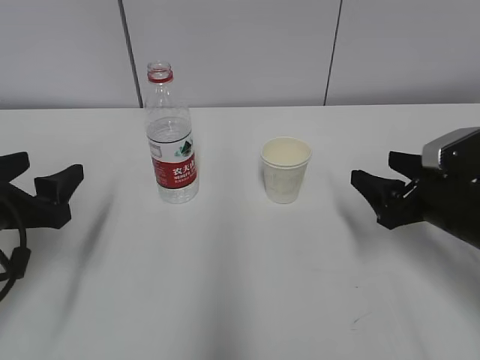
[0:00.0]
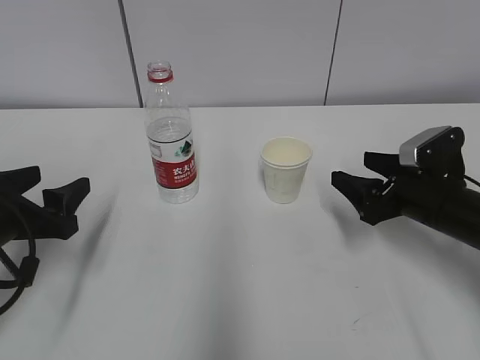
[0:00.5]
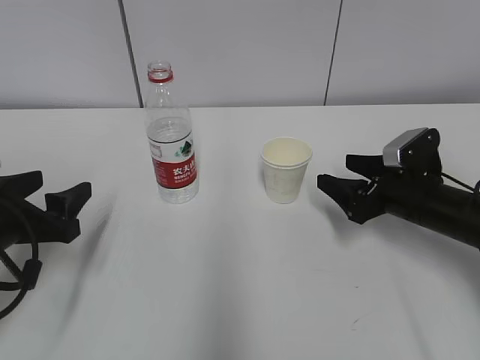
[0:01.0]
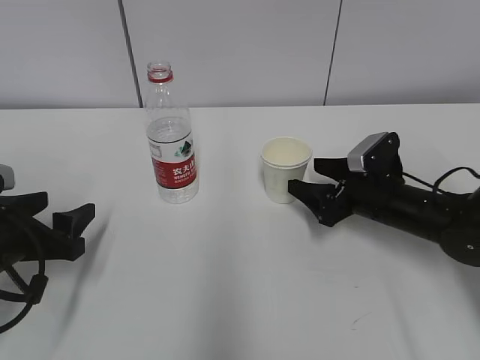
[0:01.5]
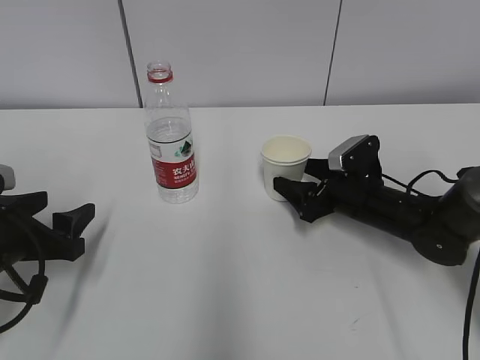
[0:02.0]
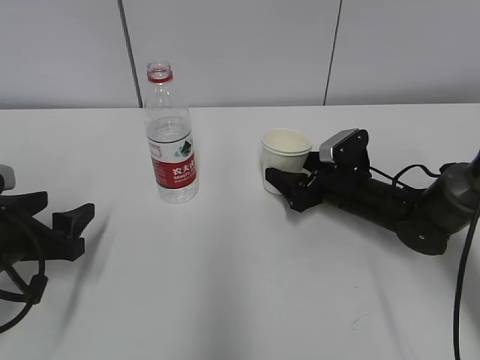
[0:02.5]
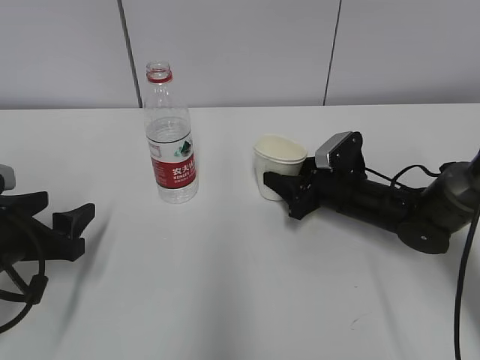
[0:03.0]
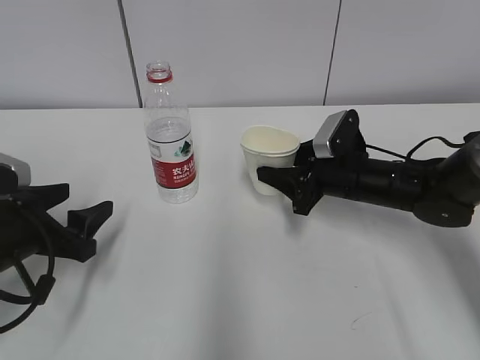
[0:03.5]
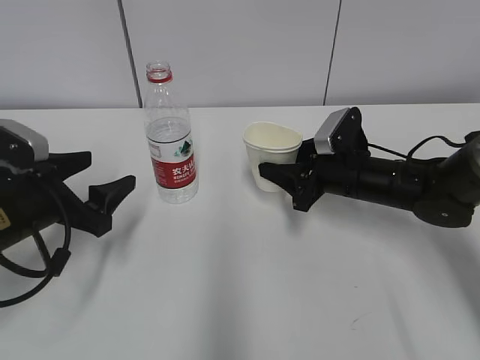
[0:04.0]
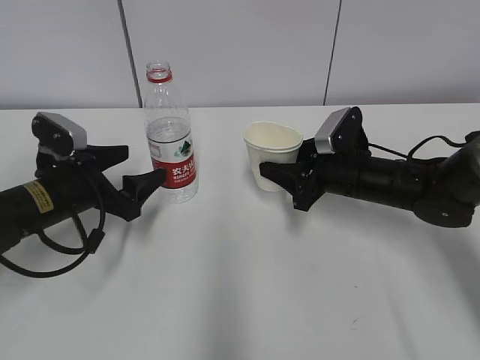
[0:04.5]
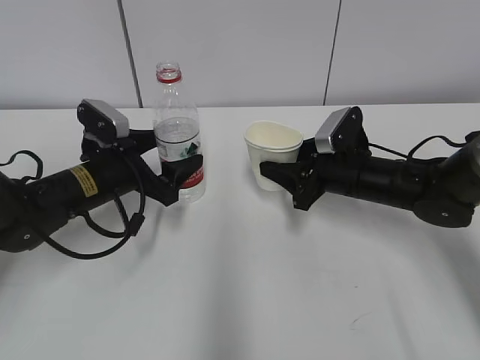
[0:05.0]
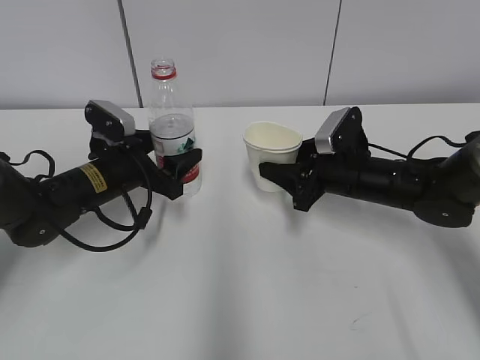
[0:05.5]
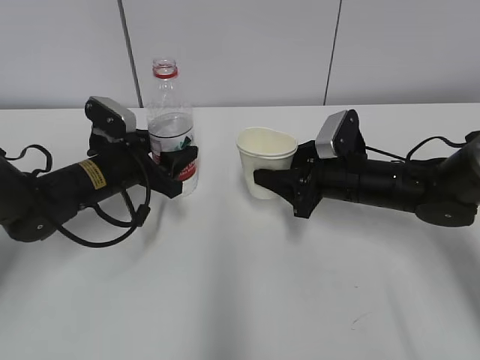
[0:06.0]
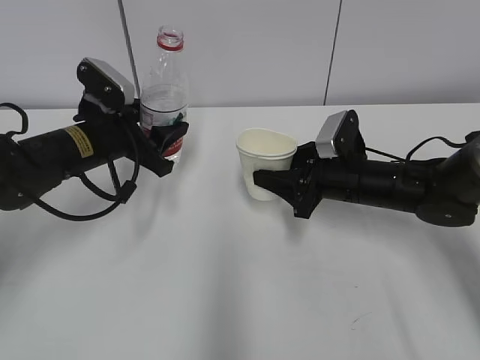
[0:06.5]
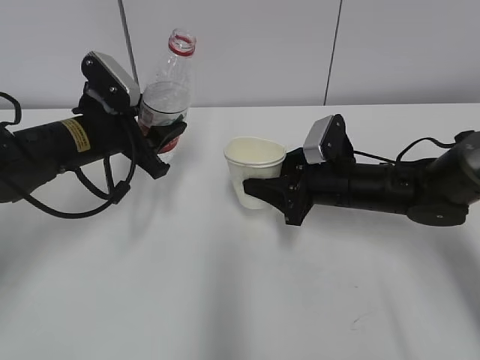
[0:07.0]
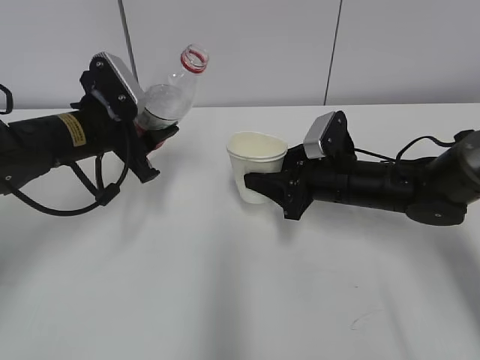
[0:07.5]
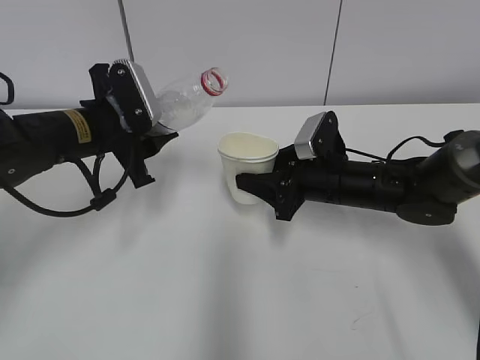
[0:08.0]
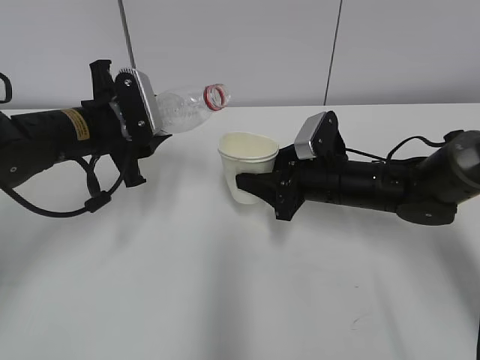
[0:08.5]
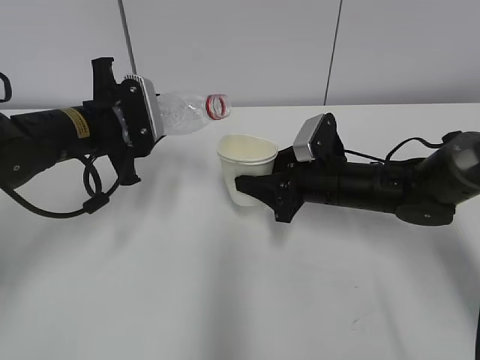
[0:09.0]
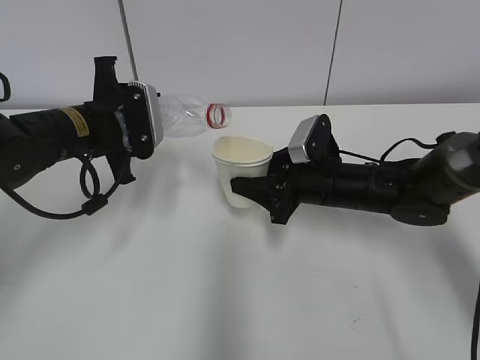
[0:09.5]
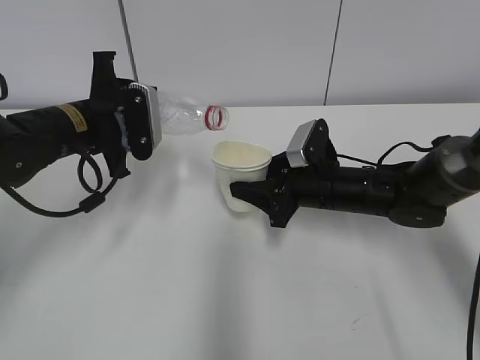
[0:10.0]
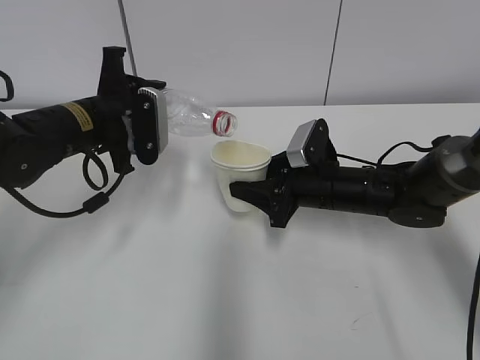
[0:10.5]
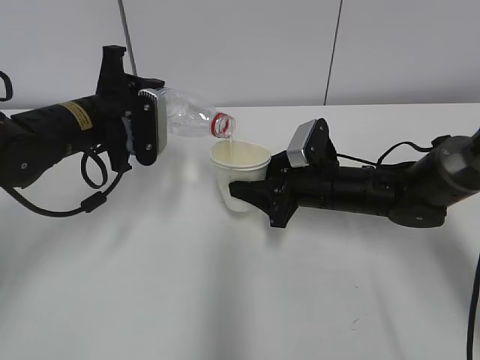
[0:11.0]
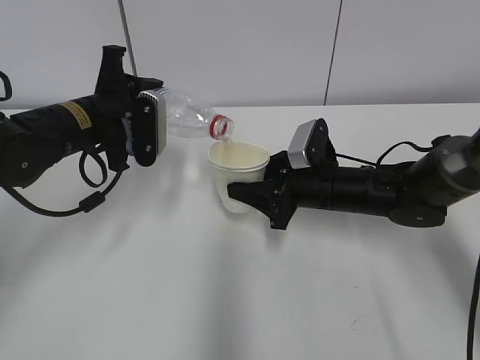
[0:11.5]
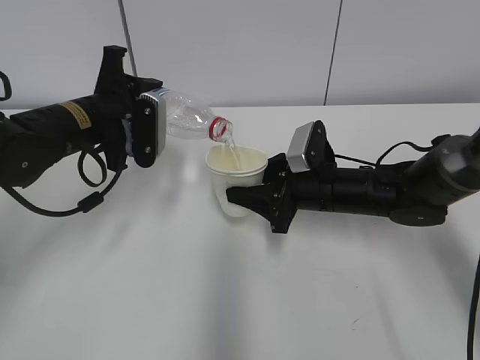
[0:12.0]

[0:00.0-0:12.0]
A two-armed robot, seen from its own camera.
Step, 0:01.0 to 0:03.0: Grab the water bottle with the left hand.
Step, 0:08.0 to 0:10.5: Fill water with the right hand.
Step, 0:08.0 to 0:10.5: Pour water with the left hand.
Step, 0:11.0 to 0:11.5: Collect water with the left hand.
0:00.0 to 0:02.0: The right gripper goes about 15 cm forward, downward and to the left.
0:02.0 to 0:04.0: The right gripper closes its fingers.
0:04.0 to 0:06.0: The left gripper heads forward and to the right, covering roughly 10 cm, and closes.
0:06.0 to 0:08.0: The left gripper heads upward, covering roughly 10 cm.
0:10.0 to 0:12.0: The grippers make only small movements.

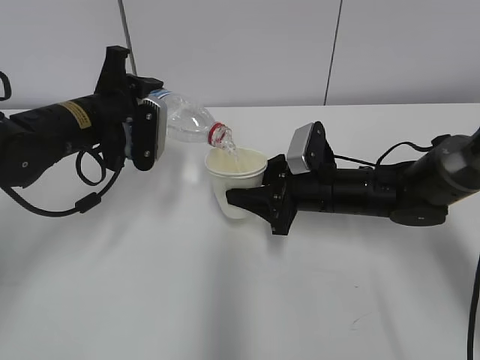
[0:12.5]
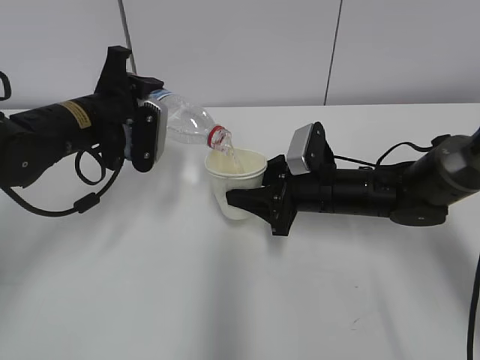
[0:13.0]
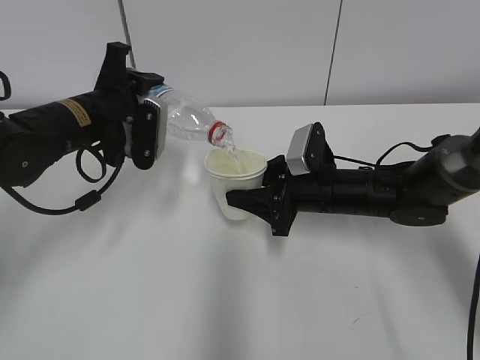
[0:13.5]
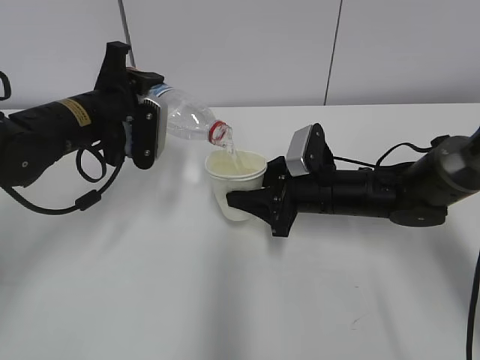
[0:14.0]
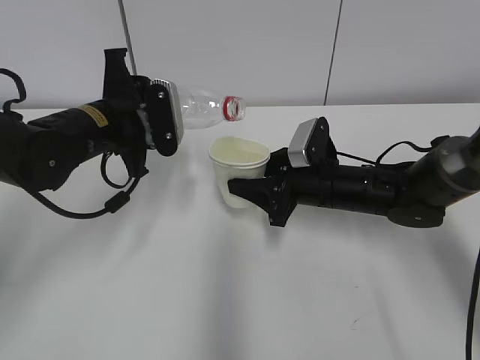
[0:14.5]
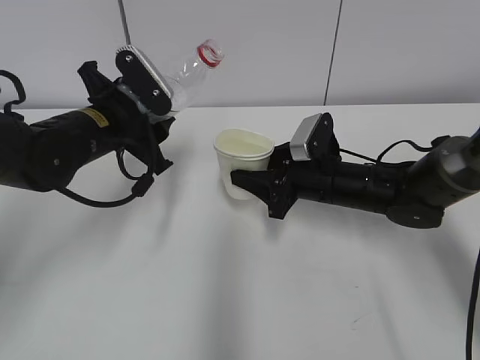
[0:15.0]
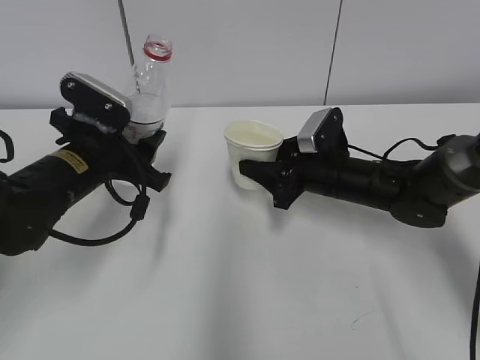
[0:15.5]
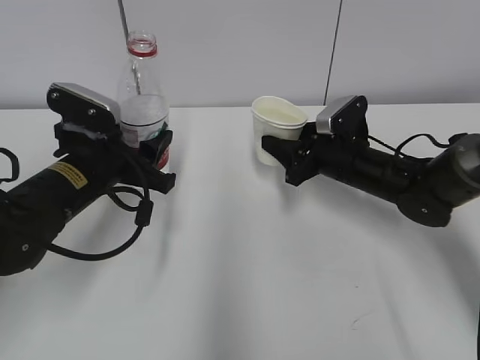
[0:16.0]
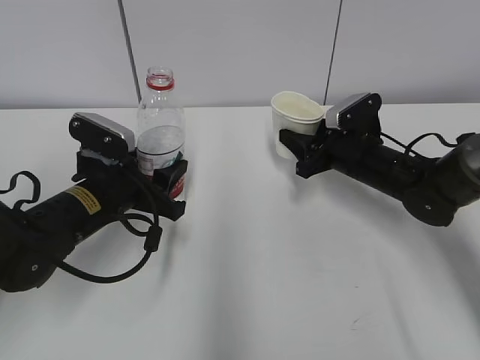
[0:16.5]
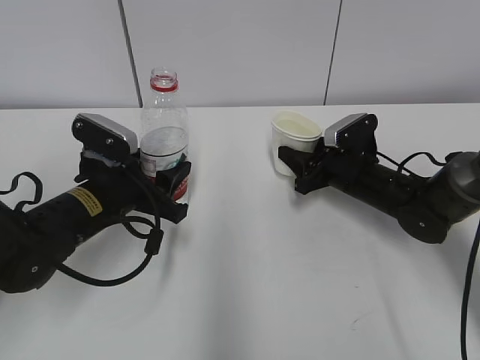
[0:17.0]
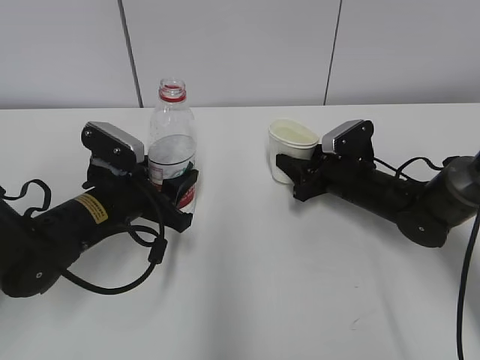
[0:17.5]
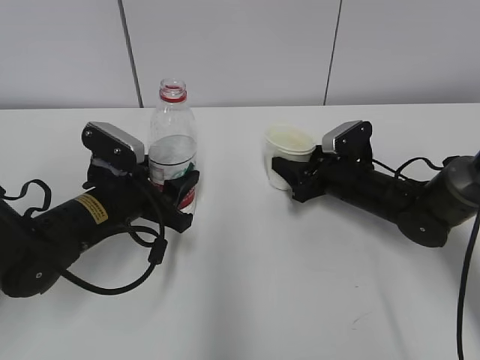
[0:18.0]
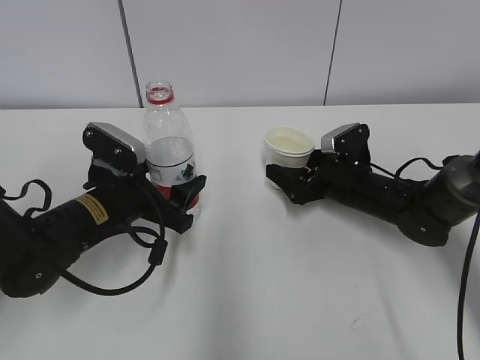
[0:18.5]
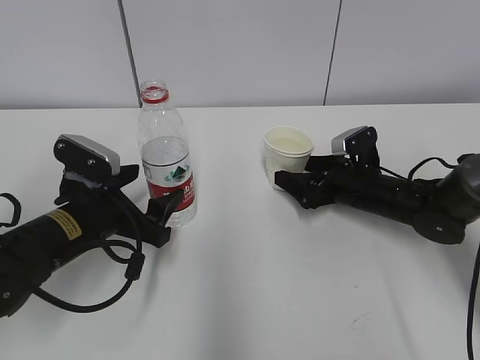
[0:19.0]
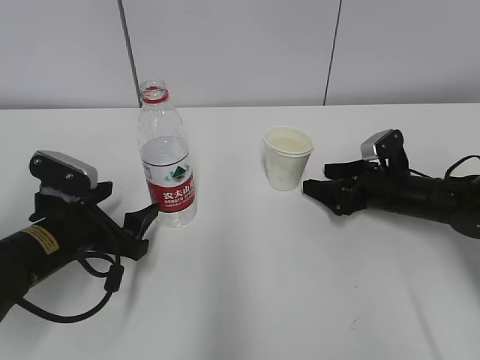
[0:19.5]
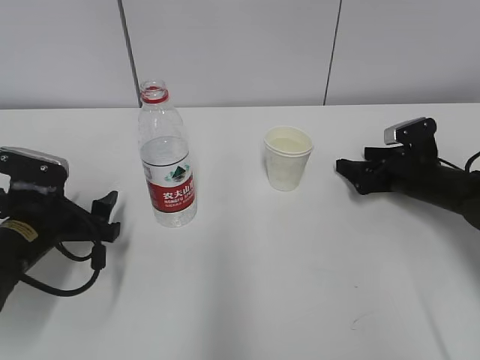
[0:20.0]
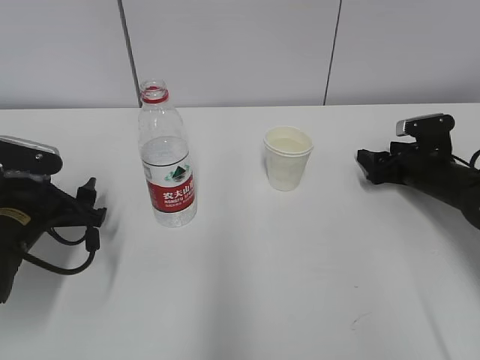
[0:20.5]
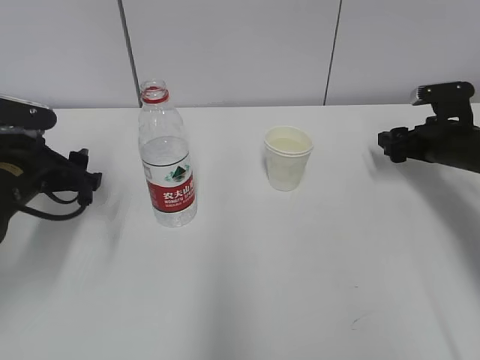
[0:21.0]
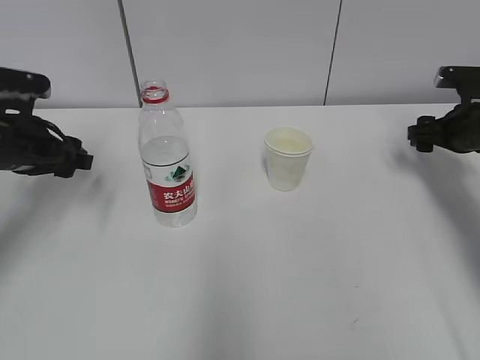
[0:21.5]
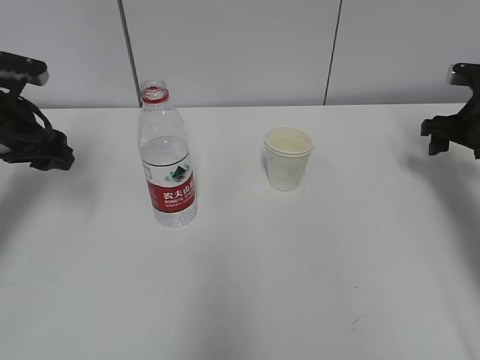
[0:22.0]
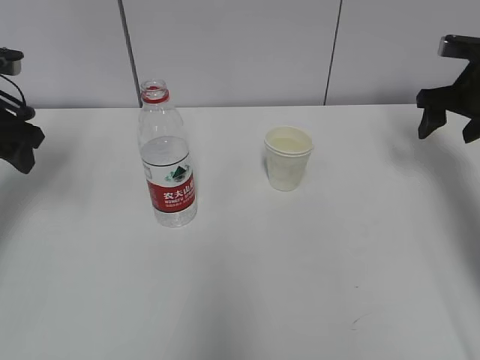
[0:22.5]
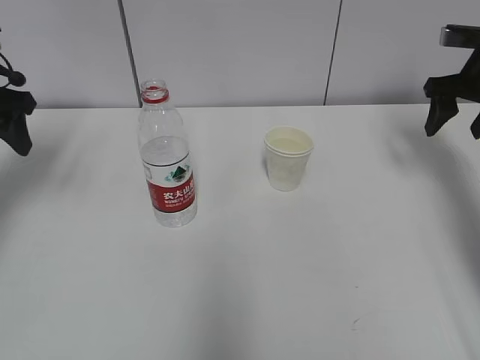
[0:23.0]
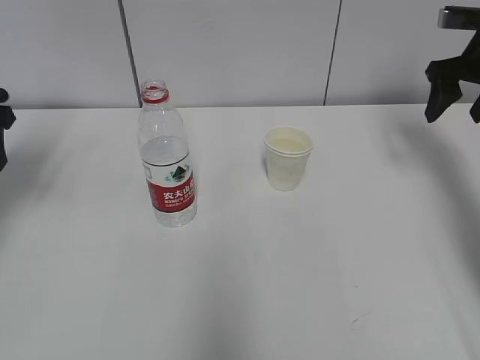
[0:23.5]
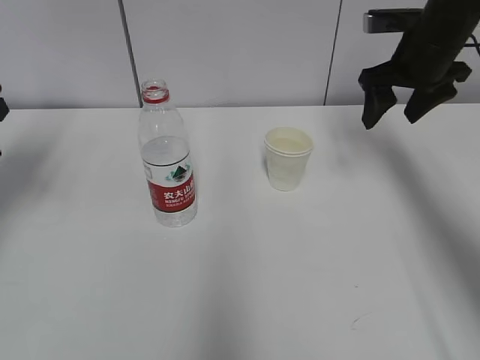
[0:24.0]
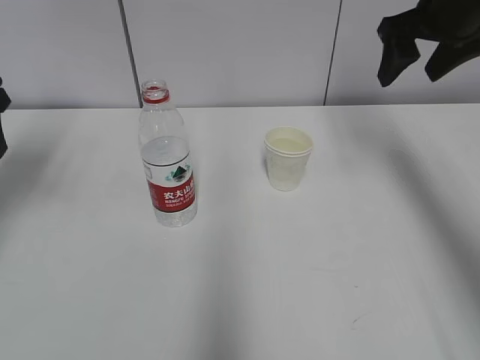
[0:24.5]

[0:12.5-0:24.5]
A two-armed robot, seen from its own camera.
Step, 0:12.5 to 0:13.5: Place the paper cup with the right hand.
0:12.5 to 0:14.5: The grippers stay close to where they were, moving slightly.
0:14.5 to 0:16.5: The right gripper is displaced to the right by some 5 cm. Meanwhile the left gripper shifts roughly 10 cm downward and backward.
0:16.5 to 0:18.5: The right gripper opens its fingers, while the left gripper opens.
0:18.5 to 0:20.5: The right gripper travels to the right by approximately 15 cm; the left gripper is displaced to the left by about 10 cm.
0:20.5 to 0:22.5: The left gripper moves upward, forward and to the left, about 15 cm. The right gripper is displaced upward by some 15 cm.
0:22.5 to 0:24.5: The left gripper shifts by roughly 5 cm. Meanwhile the right gripper goes some 15 cm upward and to the left.

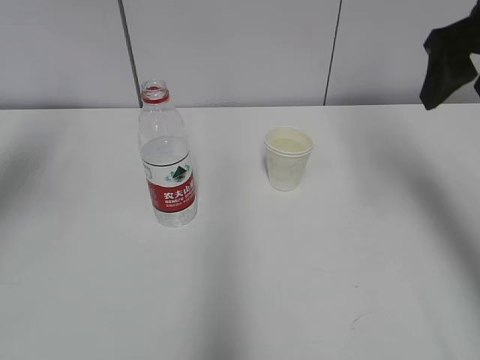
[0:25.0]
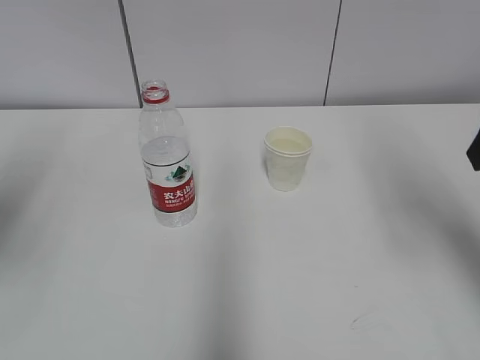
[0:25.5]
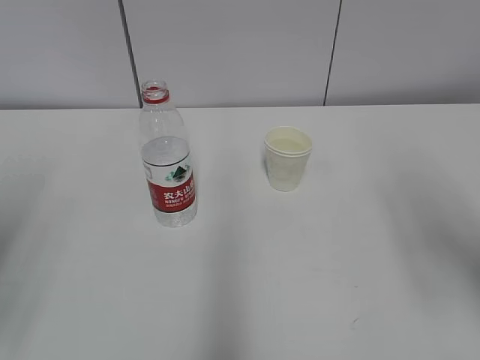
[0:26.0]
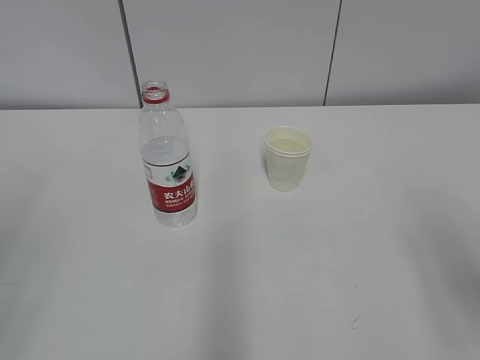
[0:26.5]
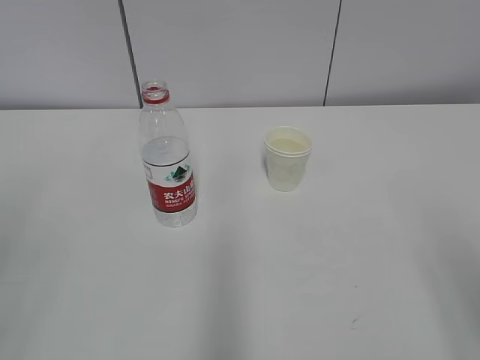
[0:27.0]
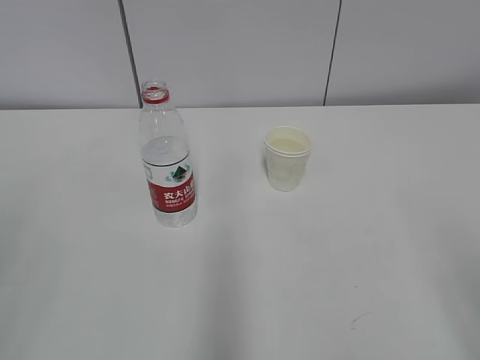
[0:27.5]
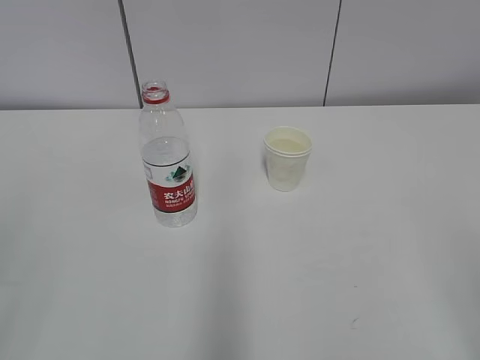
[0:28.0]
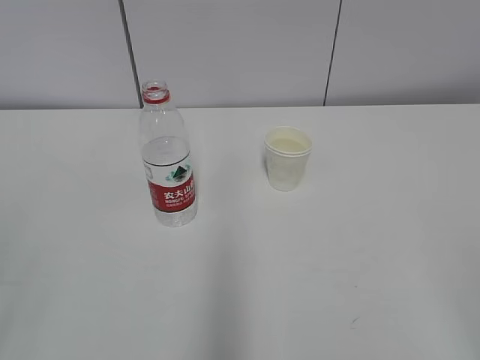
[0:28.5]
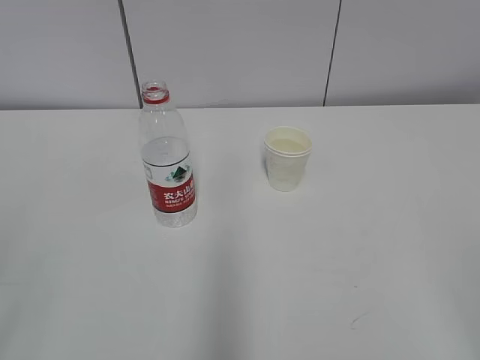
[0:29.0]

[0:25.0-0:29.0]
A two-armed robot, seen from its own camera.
0:25.0 to 0:27.0: The grippers both shift backward by about 25 cm.
